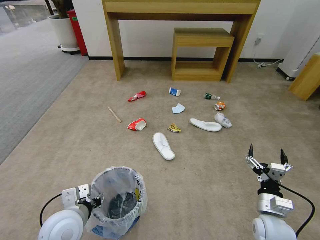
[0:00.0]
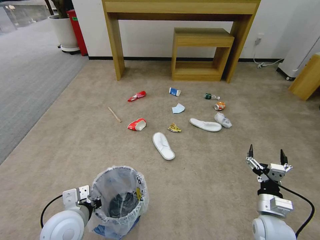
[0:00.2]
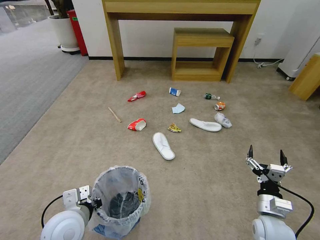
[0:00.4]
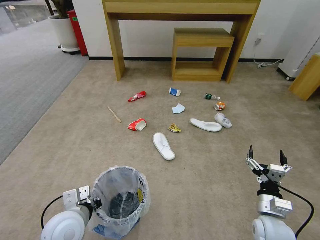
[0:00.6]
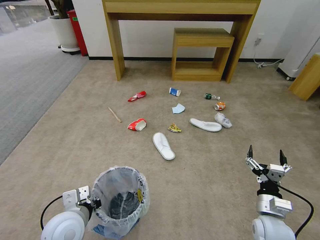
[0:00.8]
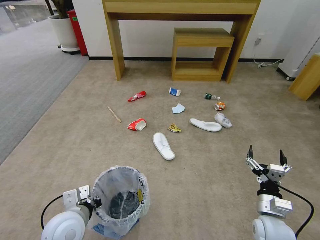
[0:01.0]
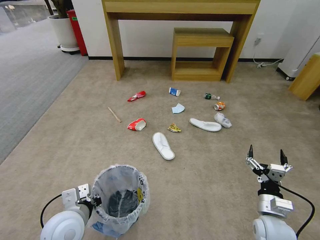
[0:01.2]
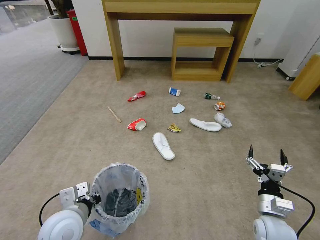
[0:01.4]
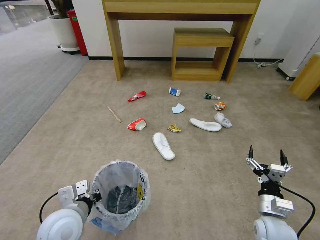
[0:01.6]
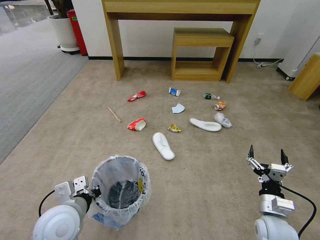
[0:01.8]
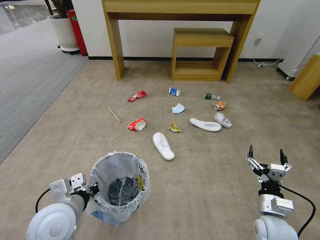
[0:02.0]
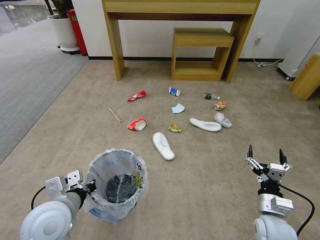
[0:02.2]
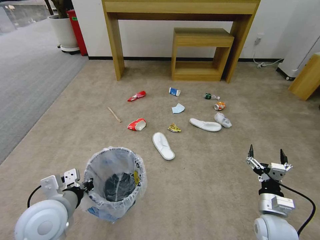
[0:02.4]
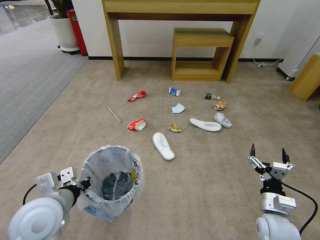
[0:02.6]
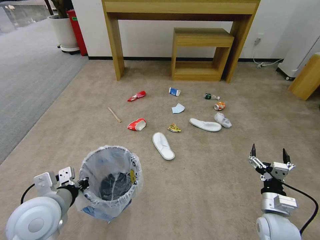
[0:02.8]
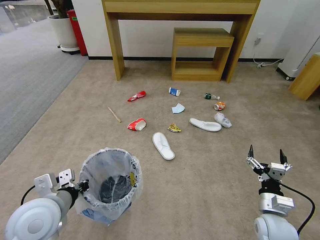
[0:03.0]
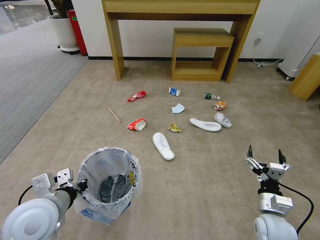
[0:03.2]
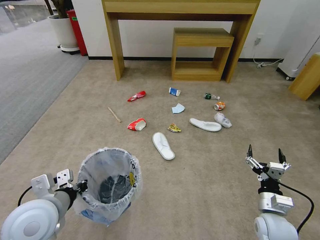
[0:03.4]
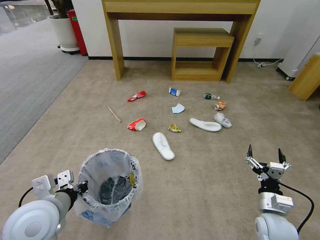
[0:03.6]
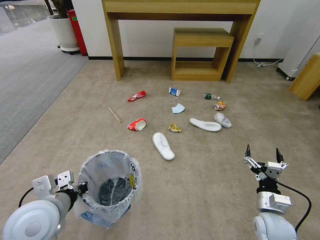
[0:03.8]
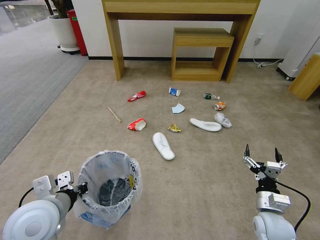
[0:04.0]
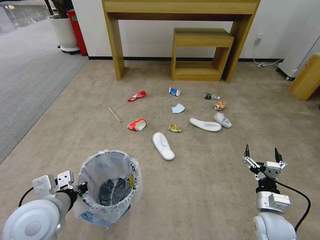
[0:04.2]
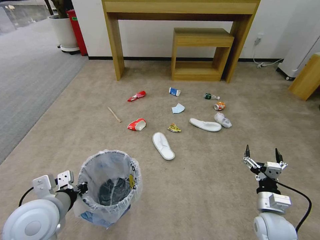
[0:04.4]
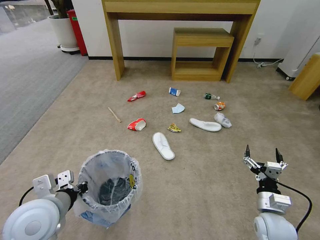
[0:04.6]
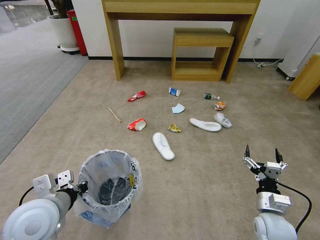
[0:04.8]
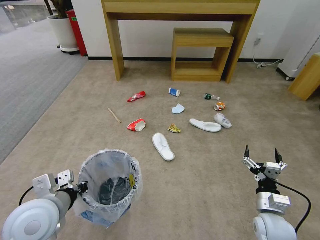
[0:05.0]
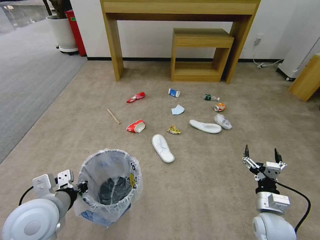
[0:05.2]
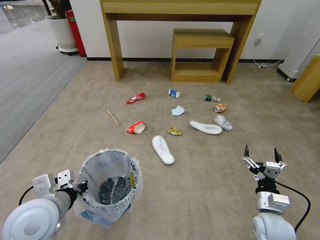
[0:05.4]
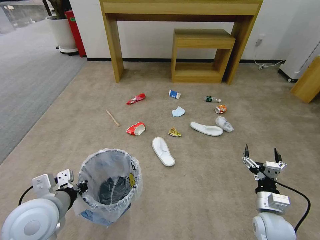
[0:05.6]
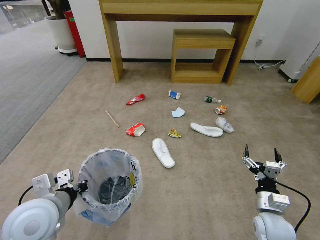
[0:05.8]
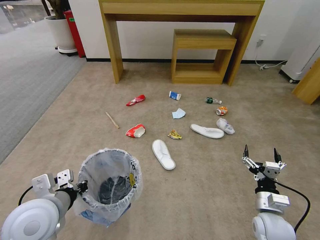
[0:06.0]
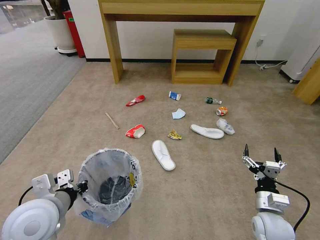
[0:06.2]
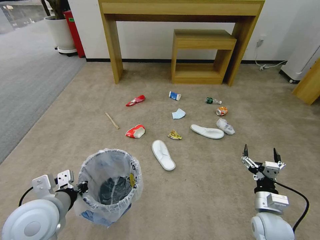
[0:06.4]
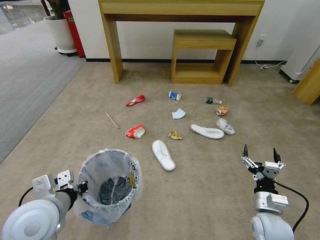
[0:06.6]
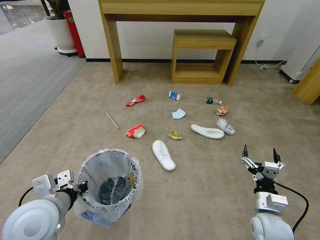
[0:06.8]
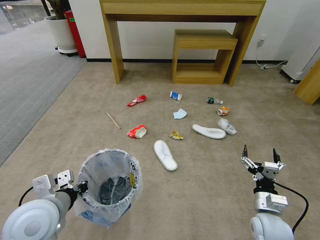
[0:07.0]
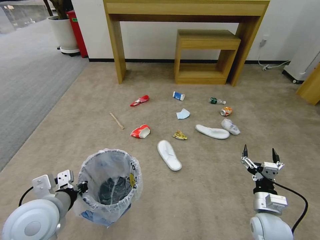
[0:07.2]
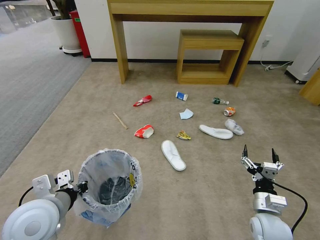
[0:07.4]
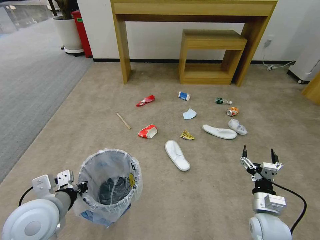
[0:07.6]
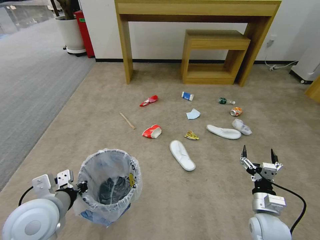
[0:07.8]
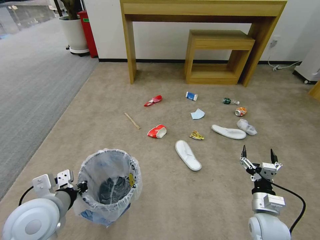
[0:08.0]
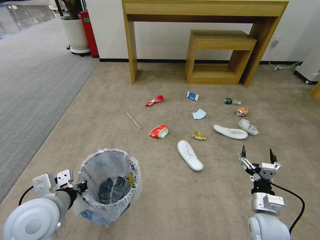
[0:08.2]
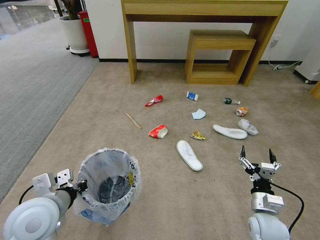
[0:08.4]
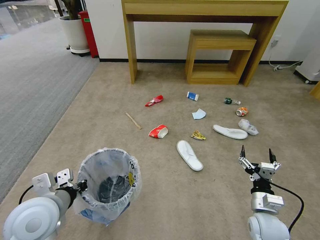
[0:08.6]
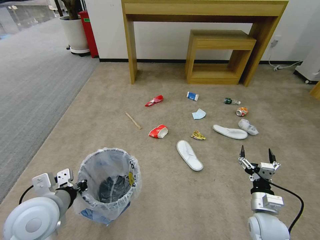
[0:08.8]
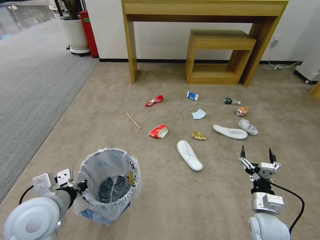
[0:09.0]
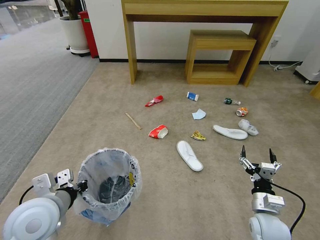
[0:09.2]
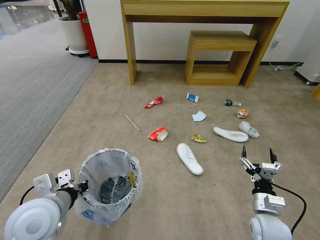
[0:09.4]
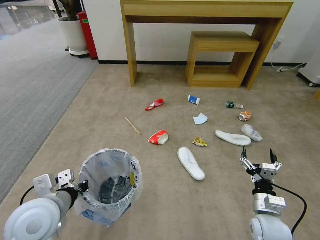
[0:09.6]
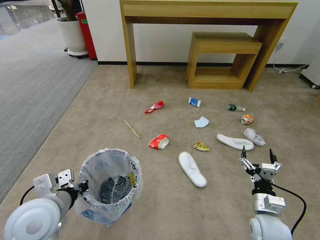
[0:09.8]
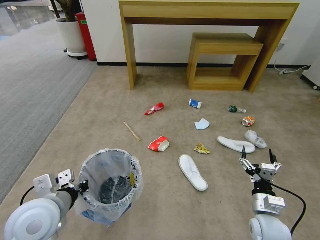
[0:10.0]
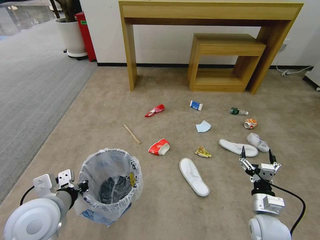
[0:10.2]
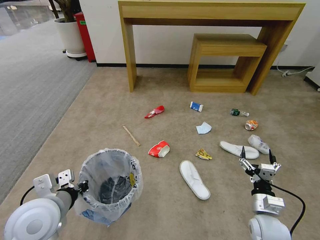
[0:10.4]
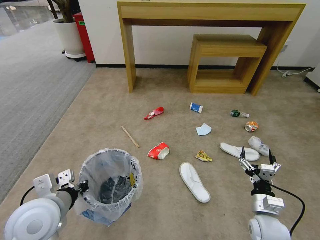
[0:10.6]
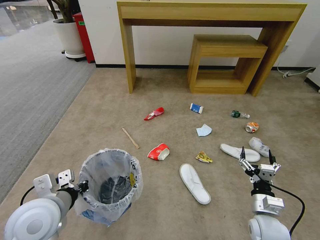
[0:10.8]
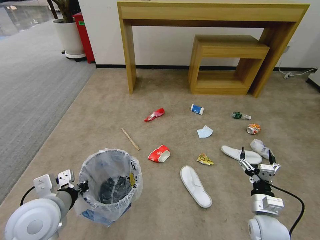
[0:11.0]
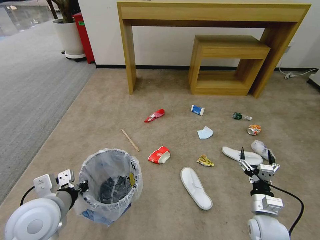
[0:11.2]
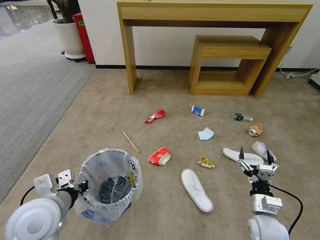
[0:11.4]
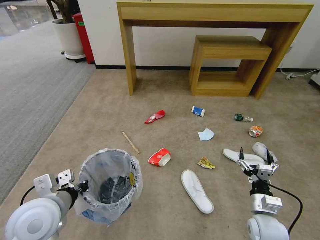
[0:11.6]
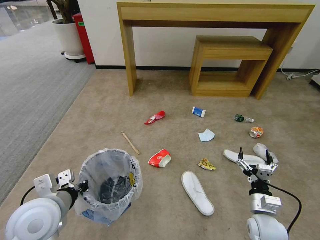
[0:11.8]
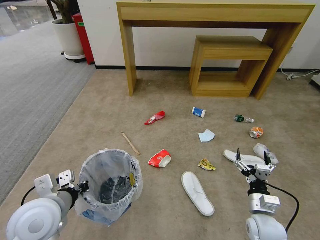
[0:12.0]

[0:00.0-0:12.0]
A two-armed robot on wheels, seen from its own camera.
Task of the whole recording: Pick up the trash bin and place the garbage on the floor into it.
0:00.0 to 0:01.6: The left gripper closes its fingers.
0:01.6 to 0:03.0: The left gripper moves upward, some 5 cm.
0:03.0 to 0:06.0: Neither gripper changes place.
0:06.0 to 0:09.0: The two grippers keep their place.
0:10.4 to 0:12.0: Both grippers stay put.

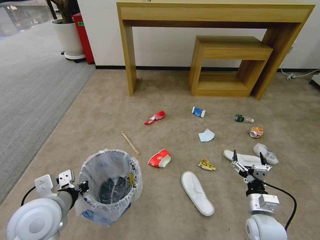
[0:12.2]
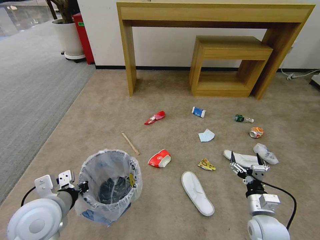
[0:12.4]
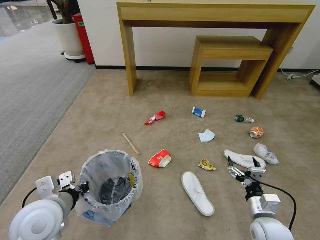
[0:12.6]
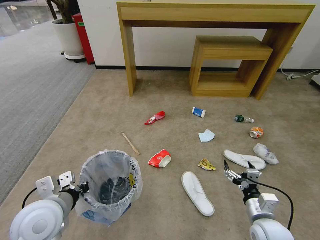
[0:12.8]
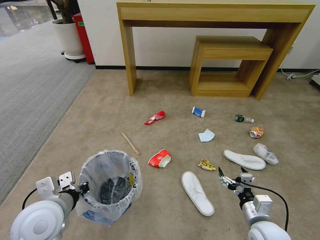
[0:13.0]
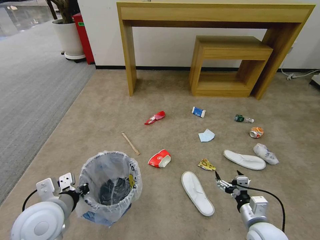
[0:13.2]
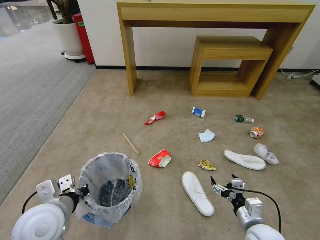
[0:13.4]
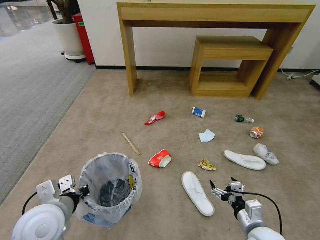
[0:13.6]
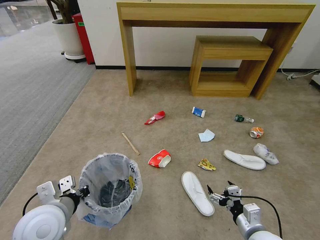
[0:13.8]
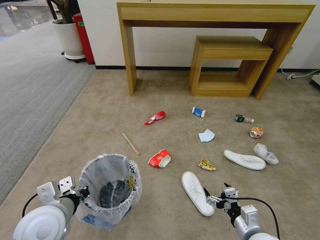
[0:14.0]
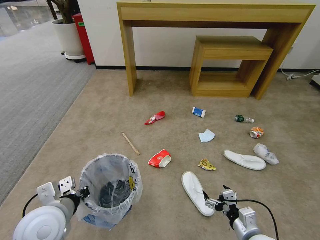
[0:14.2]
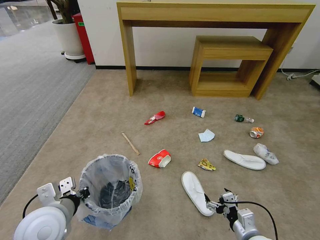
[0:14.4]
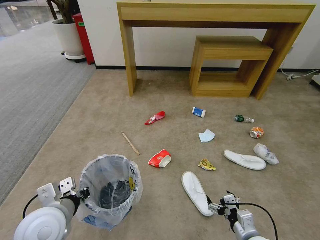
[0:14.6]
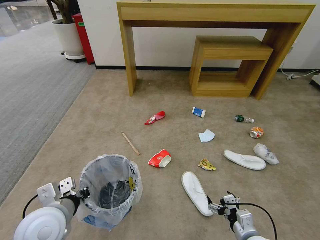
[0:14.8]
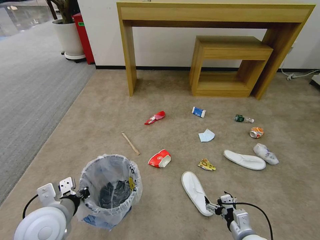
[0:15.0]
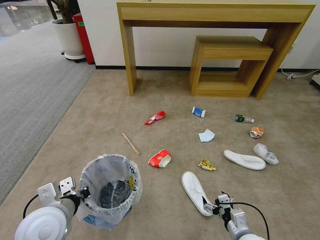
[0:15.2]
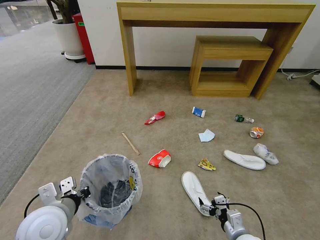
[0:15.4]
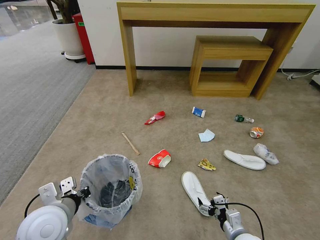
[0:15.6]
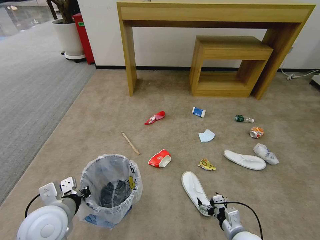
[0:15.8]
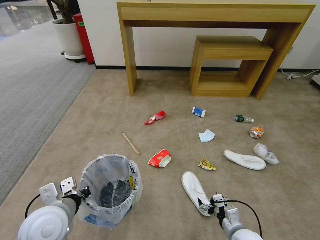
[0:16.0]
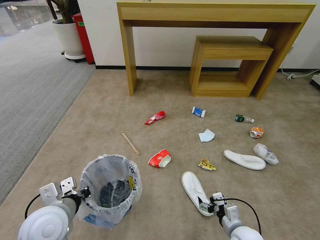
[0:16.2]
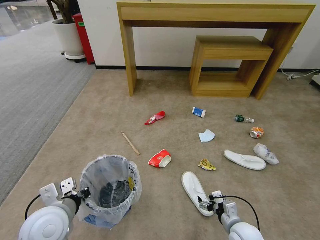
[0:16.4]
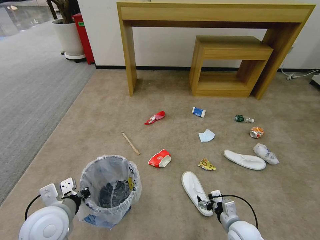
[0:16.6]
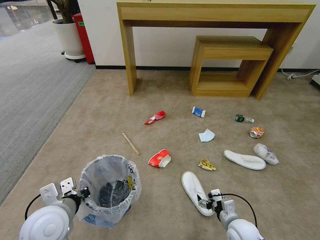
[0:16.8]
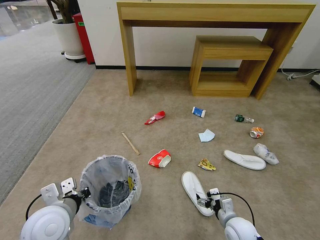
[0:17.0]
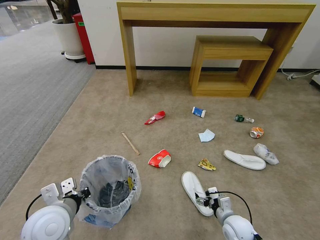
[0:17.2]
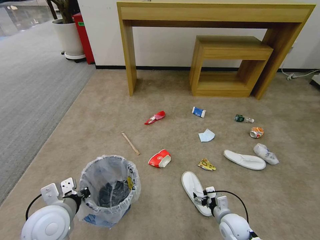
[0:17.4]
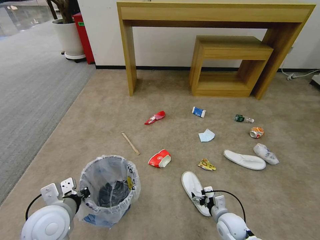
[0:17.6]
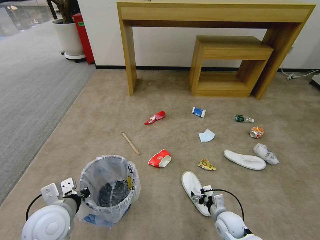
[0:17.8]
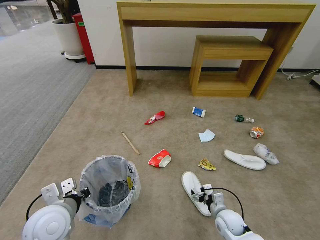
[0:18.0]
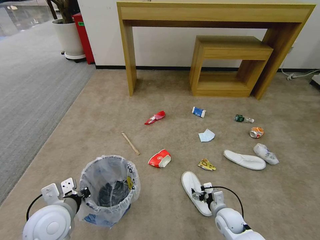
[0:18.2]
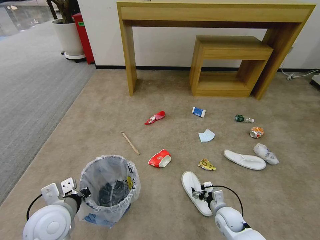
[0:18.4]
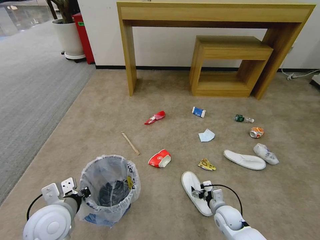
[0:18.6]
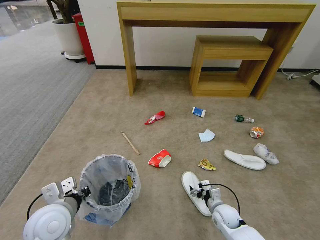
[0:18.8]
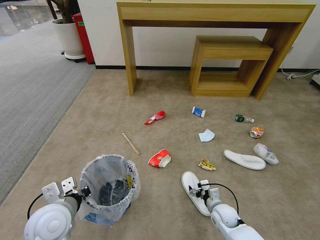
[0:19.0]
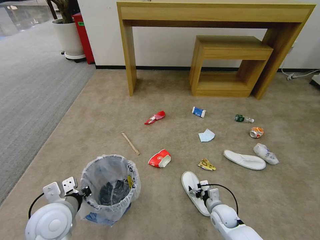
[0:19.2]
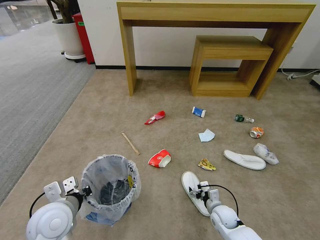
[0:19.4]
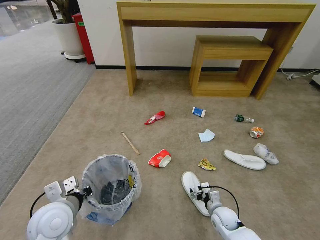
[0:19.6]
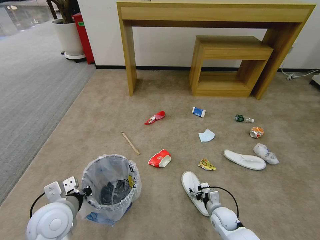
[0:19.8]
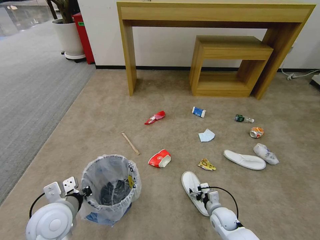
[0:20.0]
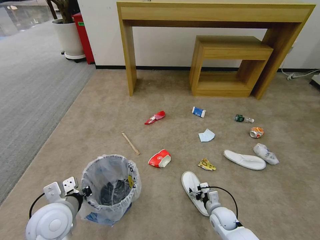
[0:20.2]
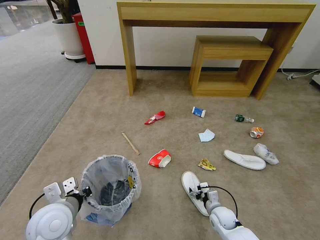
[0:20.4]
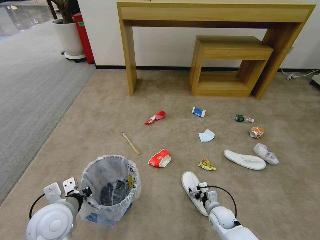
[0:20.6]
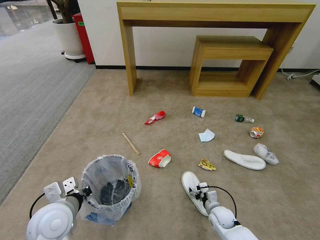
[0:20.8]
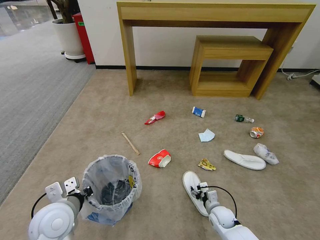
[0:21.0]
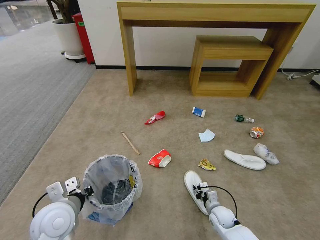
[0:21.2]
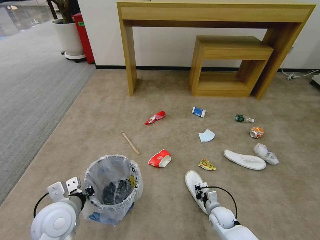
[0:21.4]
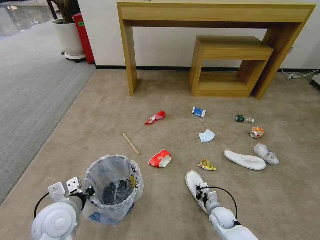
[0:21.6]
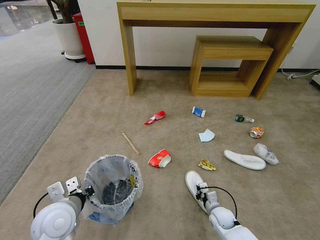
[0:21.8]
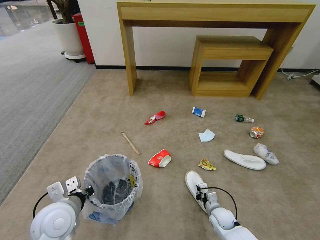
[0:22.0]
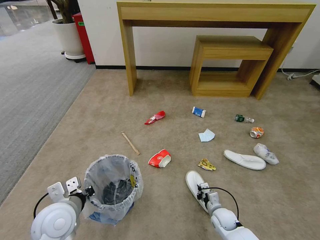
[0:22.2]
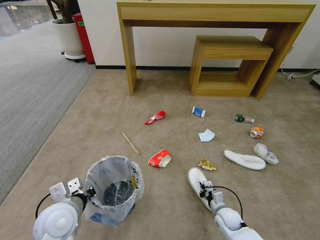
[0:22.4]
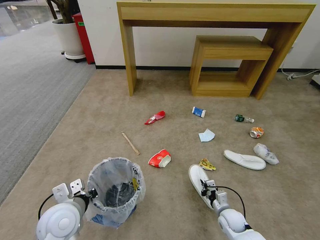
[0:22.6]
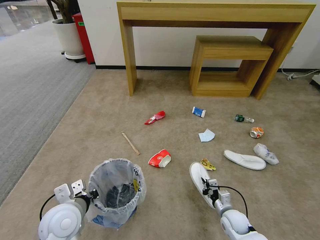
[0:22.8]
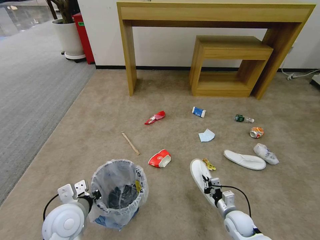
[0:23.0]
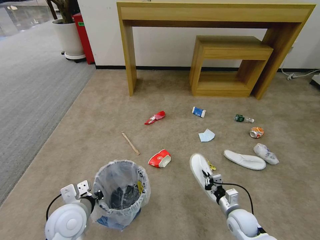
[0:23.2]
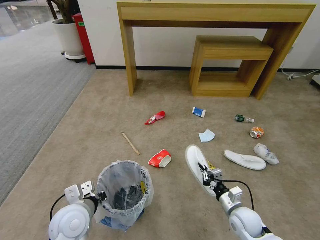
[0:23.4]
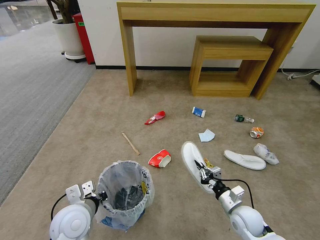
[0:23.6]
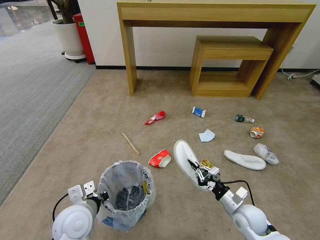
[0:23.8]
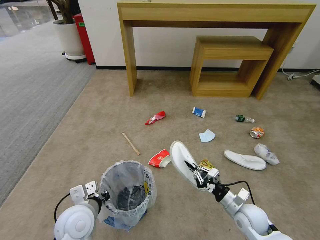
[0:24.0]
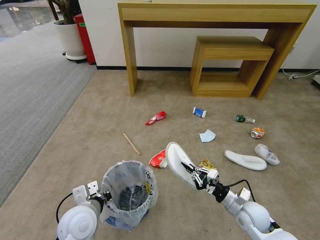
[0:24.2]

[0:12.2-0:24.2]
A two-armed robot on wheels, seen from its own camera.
Task of the whole recording: Pick up the trash bin and place the garbage on the floor into it.
0:12.2 to 0:13.8: The right gripper shifts about 5 cm backward.
0:13.8 to 0:15.2: The right gripper heads downward, covering about 5 cm.
0:15.2 to 0:16.6: The grippers stay close to where they were, moving slightly.
0:16.6 to 0:18.2: The right gripper travels forward by roughly 5 cm.
0:18.2 to 0:19.8: The grippers make only small movements.
0:19.8 to 0:21.2: The right gripper closes.
0:21.2 to 0:22.6: The right gripper closes.
0:22.6 to 0:24.2: The right gripper shifts roughly 15 cm upward.
